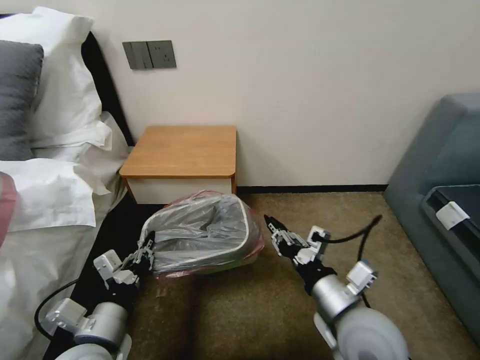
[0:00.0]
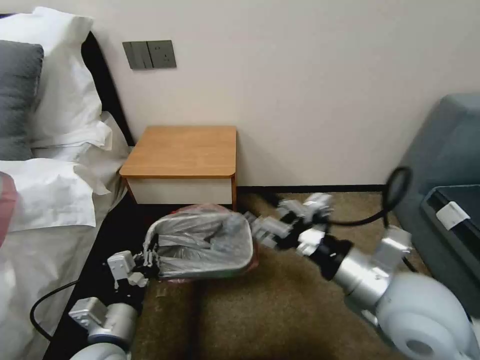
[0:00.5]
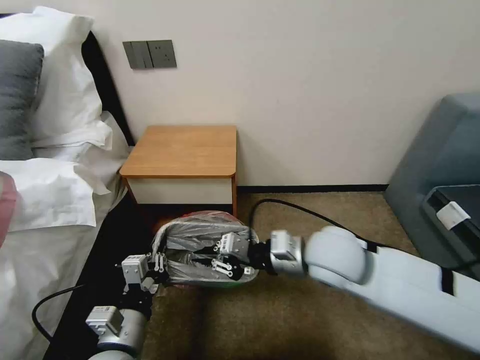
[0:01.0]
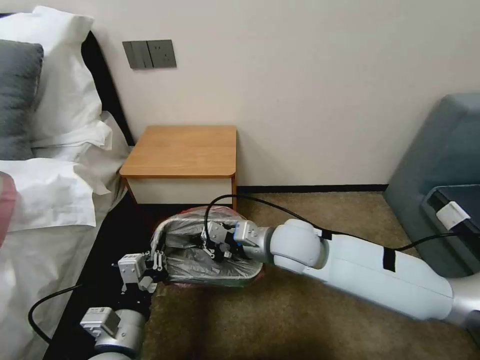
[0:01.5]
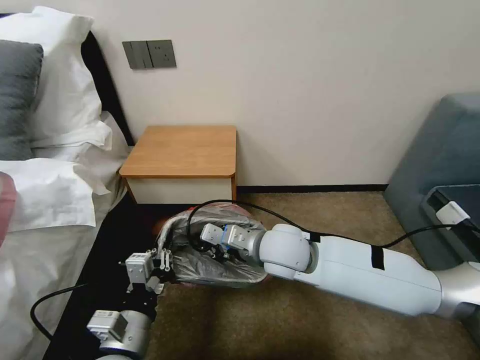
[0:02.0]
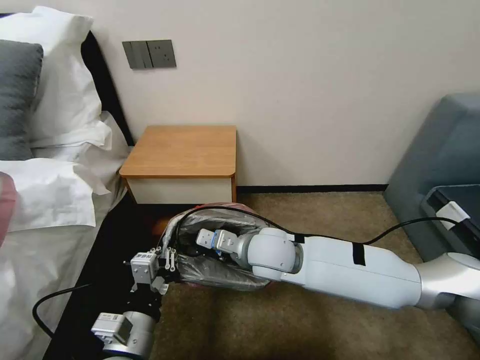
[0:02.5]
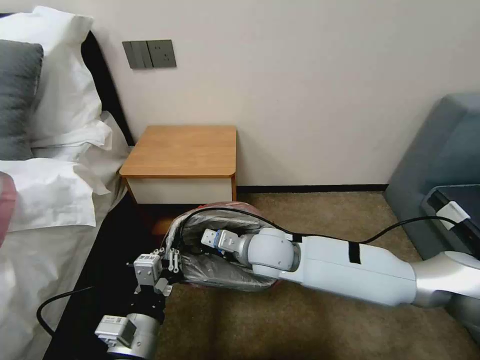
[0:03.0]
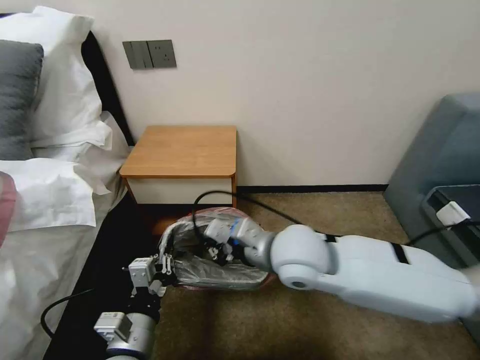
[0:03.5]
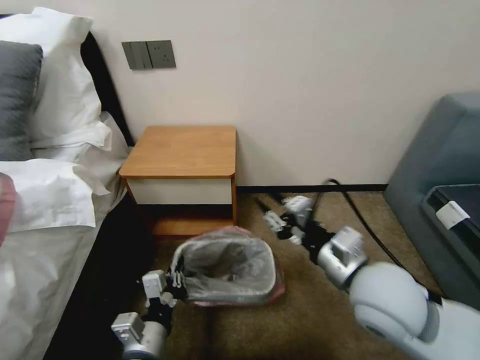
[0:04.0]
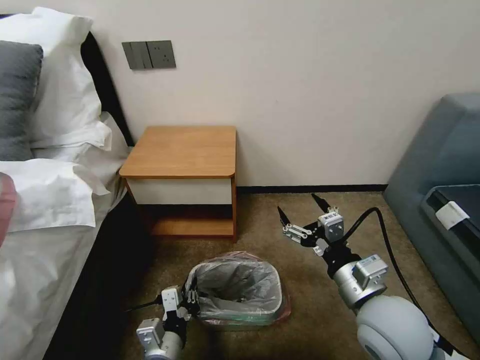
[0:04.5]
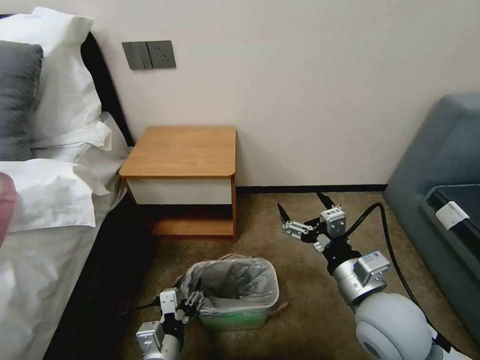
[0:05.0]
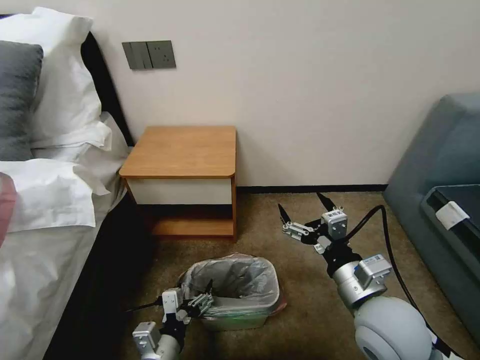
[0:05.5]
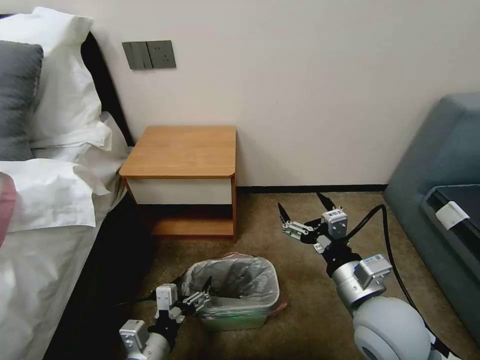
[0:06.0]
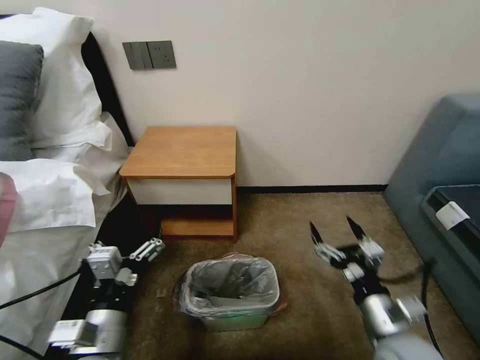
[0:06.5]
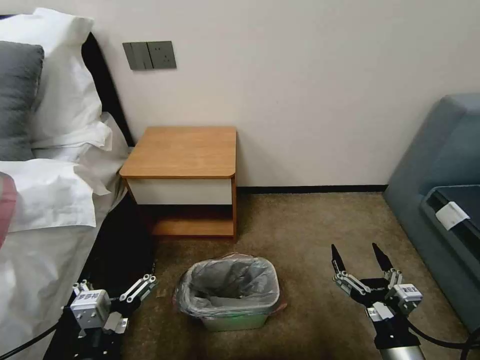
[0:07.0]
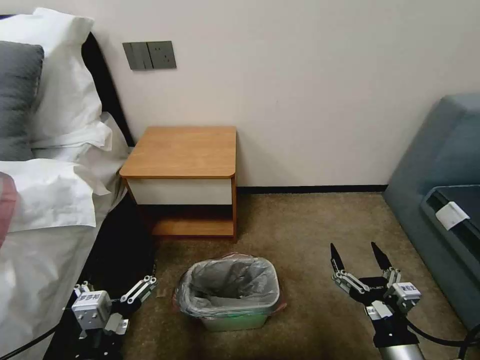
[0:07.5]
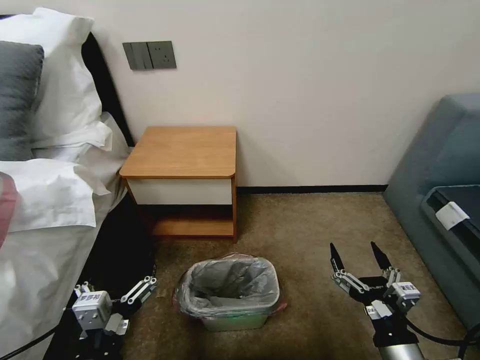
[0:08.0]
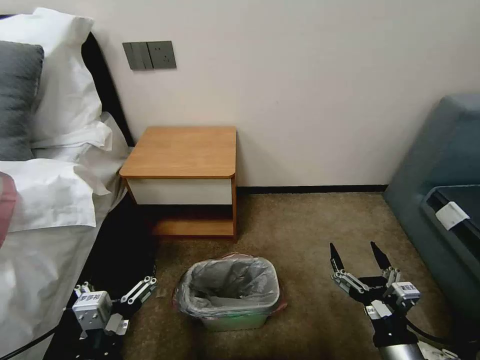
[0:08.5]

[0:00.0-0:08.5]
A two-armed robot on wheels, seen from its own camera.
Task of the whole recording: Pick up the garbage bag from the table and place it over the trash can.
0:00.0 to 0:02.0: The left gripper ends up some 5 cm from where it was. The right gripper goes roughly 20 cm forward and to the left, and opens and closes again.
0:02.0 to 0:04.0: The left gripper heads downward, covering about 5 cm, while the right gripper moves to the right and backward, about 15 cm, and opens.
0:04.0 to 0:06.5: The right gripper shifts roughly 15 cm downward, to the right and backward, and opens. The left gripper moves upward, some 5 cm, and opens up.
0:06.5 to 0:08.5: The two grippers go approximately 5 cm backward.

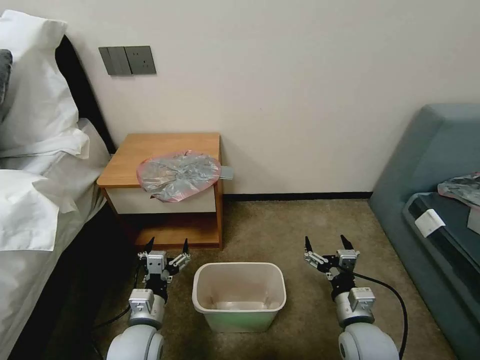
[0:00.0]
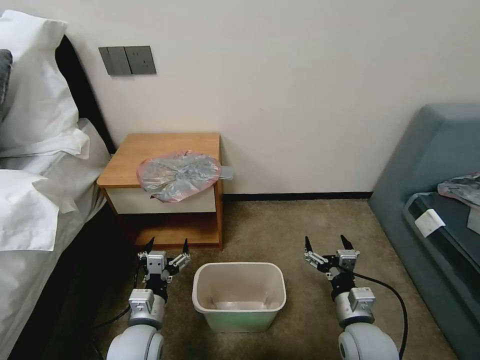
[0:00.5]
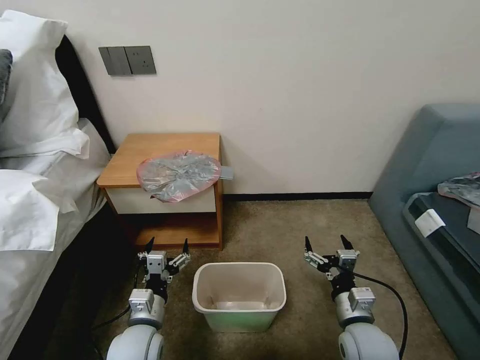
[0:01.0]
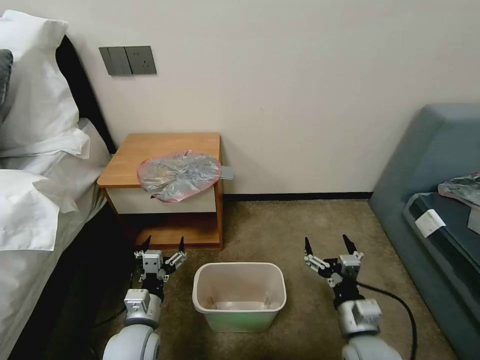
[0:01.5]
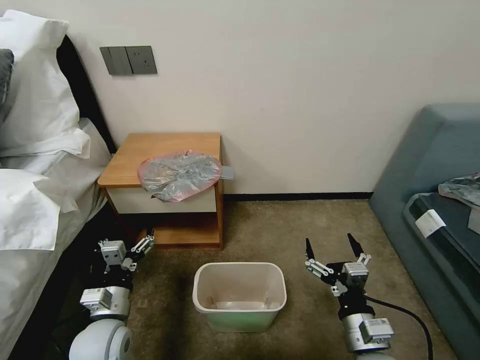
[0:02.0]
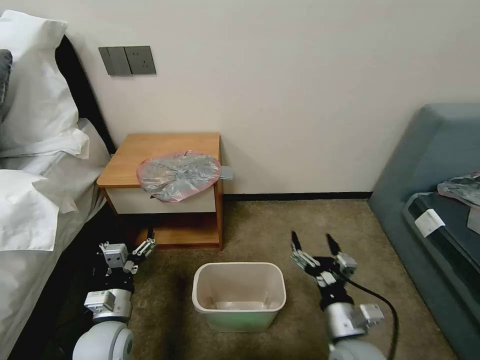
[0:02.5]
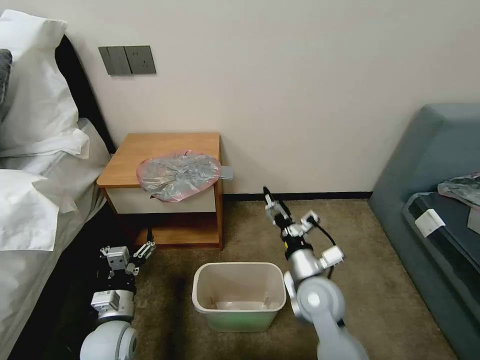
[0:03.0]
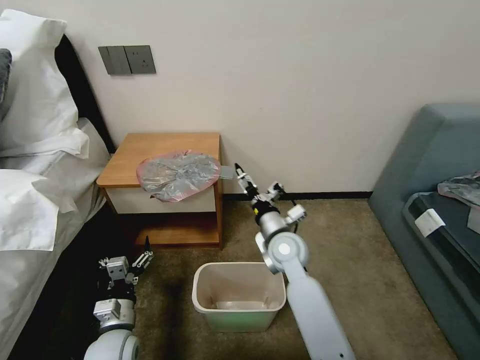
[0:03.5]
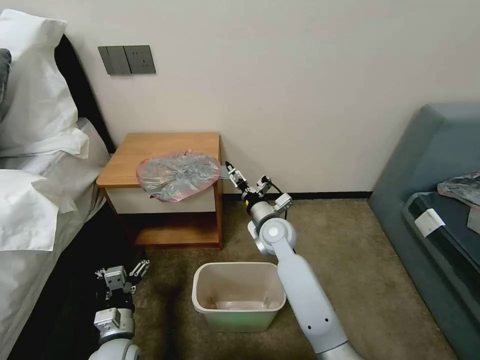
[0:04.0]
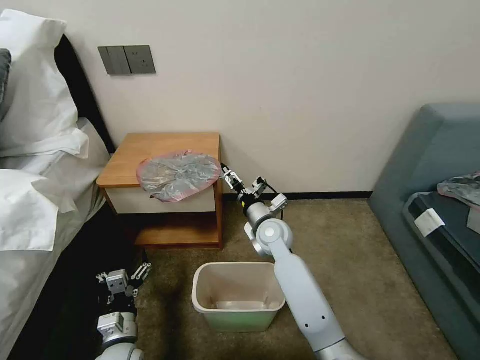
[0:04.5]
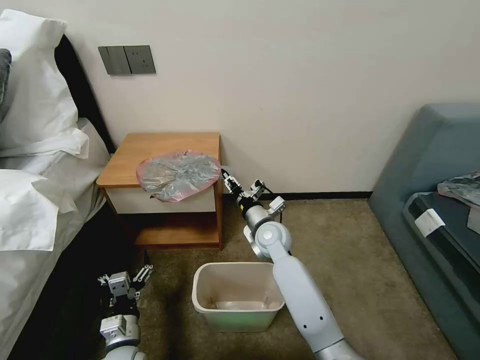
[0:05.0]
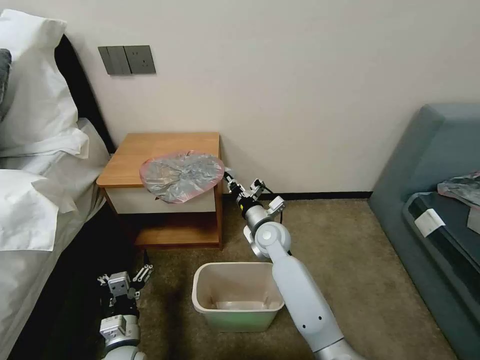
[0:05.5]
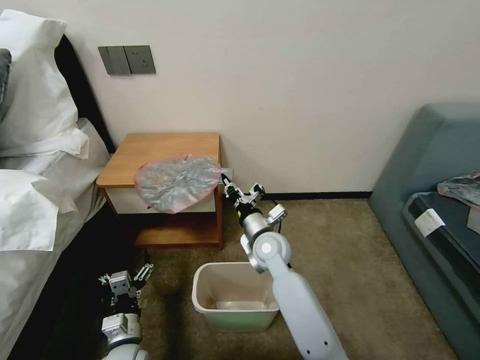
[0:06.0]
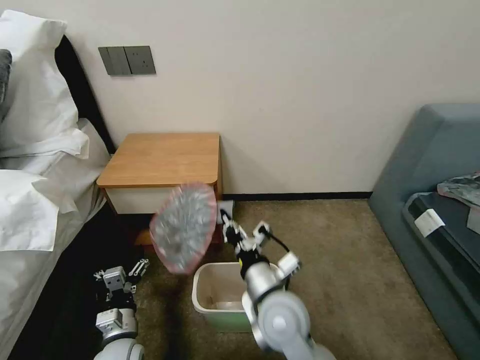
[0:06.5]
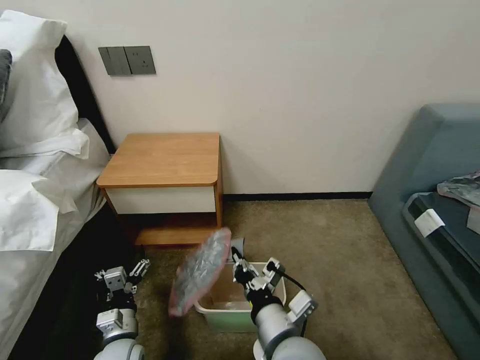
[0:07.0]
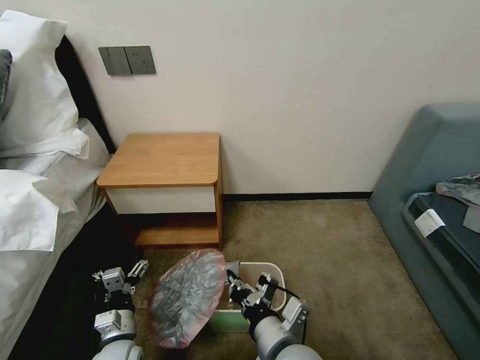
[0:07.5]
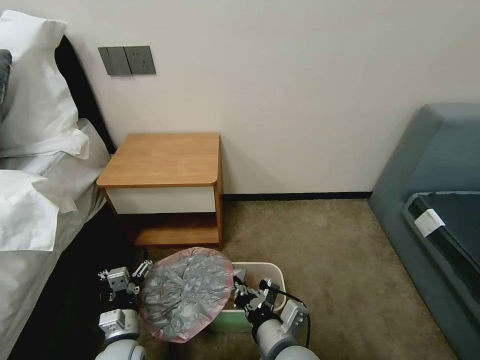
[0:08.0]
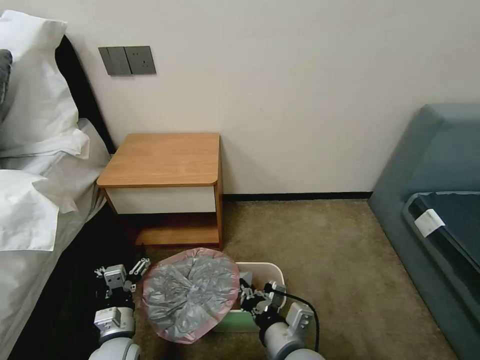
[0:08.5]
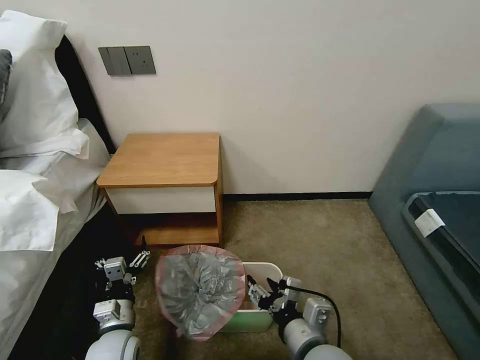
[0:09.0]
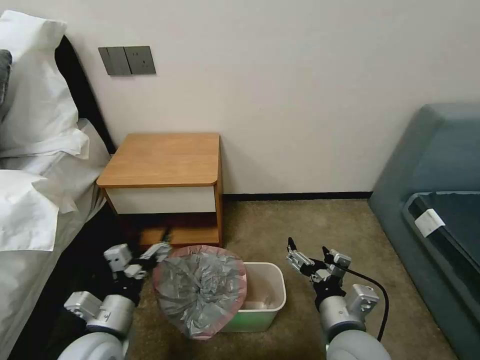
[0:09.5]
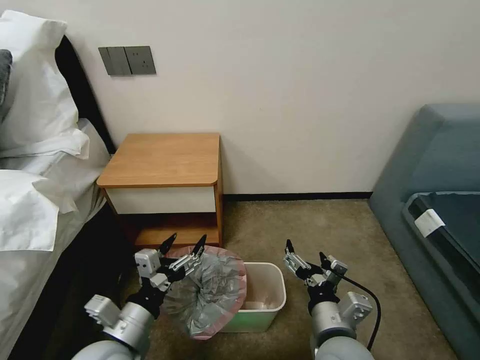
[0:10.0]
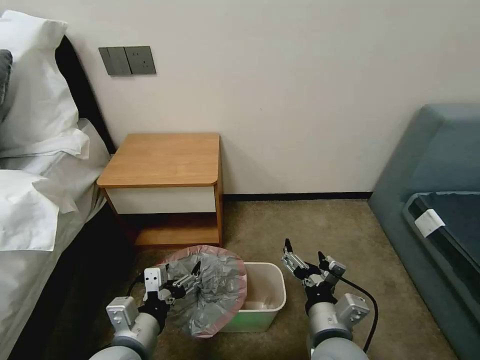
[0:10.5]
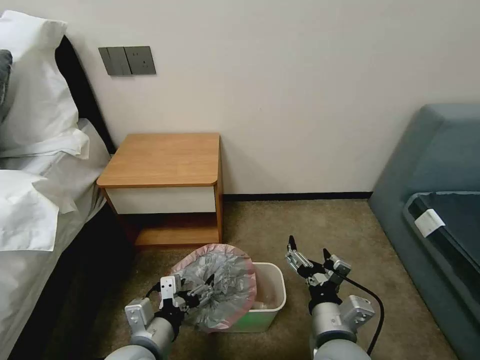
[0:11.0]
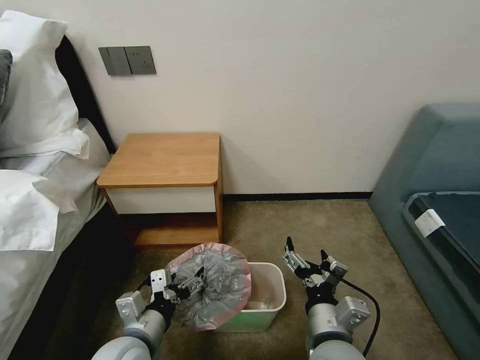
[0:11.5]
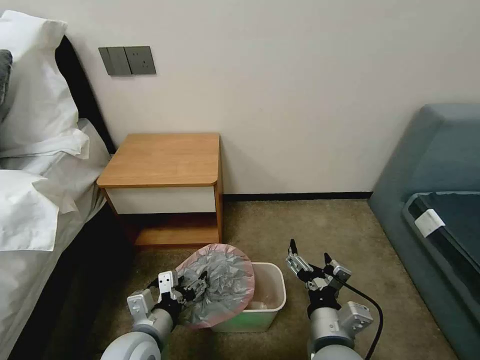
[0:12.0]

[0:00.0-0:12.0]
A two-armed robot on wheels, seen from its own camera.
Task of the whole recording: Pick up the garbage bag from the table and place it over the trash can.
0:02.0 to 0:04.0: The right gripper heads forward and to the left, covering some 30 cm. Meanwhile the left gripper moves downward, approximately 10 cm.
0:04.0 to 0:06.0: The right gripper closes its fingers.
0:06.0 to 0:08.0: The right gripper travels backward by approximately 25 cm.
0:08.0 to 0:10.0: The left gripper travels upward by about 15 cm, while the right gripper shifts some 10 cm to the right, and opens.
0:10.0 to 0:12.0: The left gripper moves roughly 5 cm.

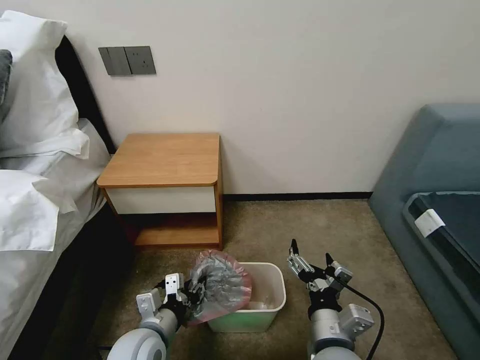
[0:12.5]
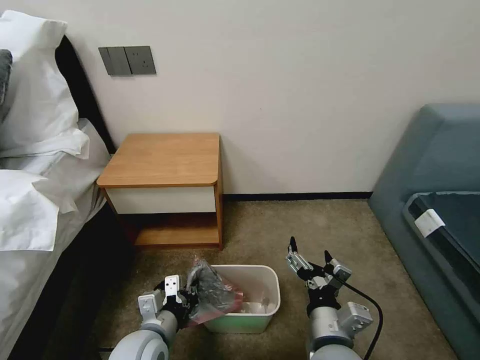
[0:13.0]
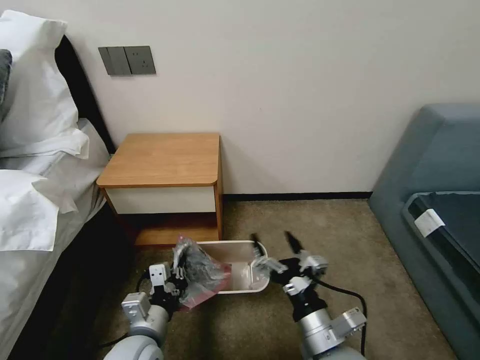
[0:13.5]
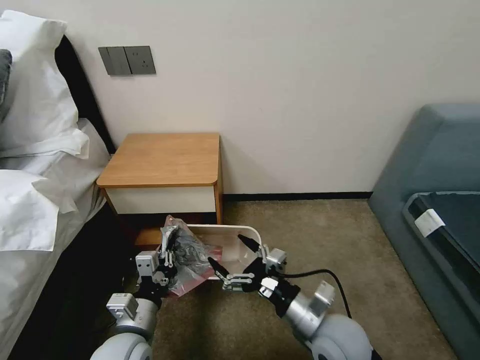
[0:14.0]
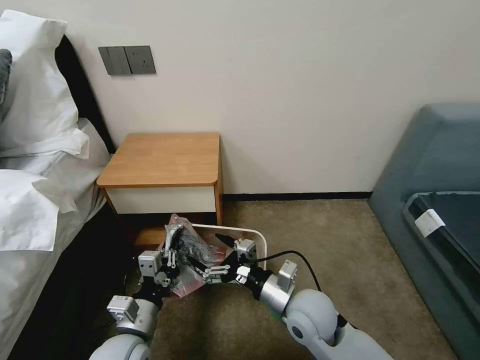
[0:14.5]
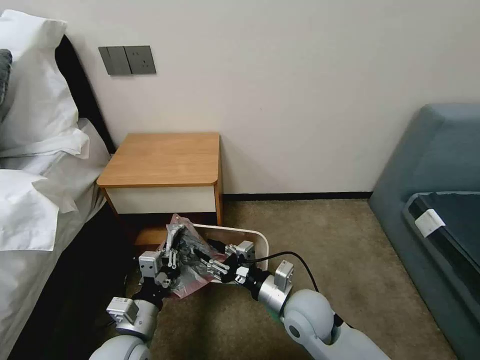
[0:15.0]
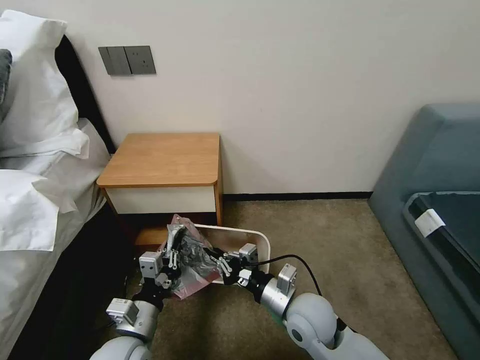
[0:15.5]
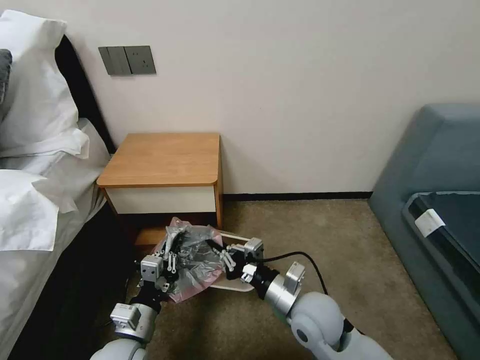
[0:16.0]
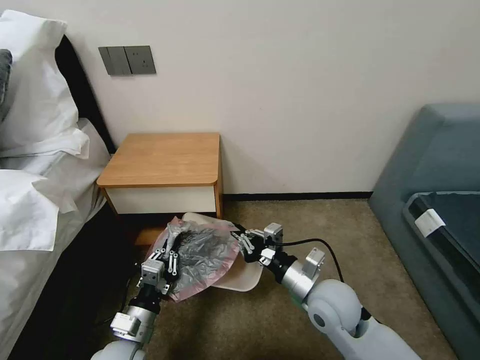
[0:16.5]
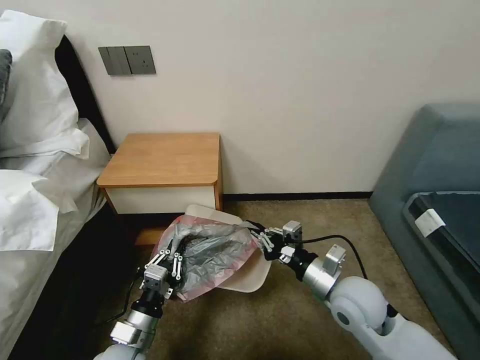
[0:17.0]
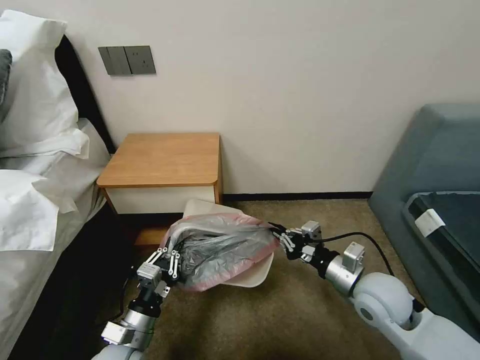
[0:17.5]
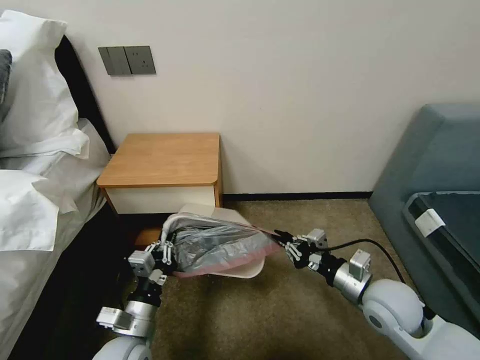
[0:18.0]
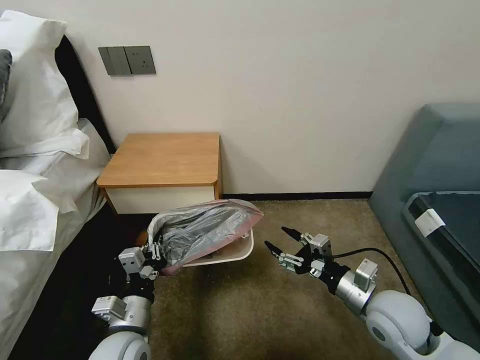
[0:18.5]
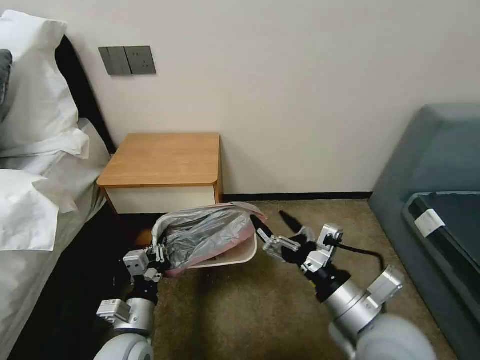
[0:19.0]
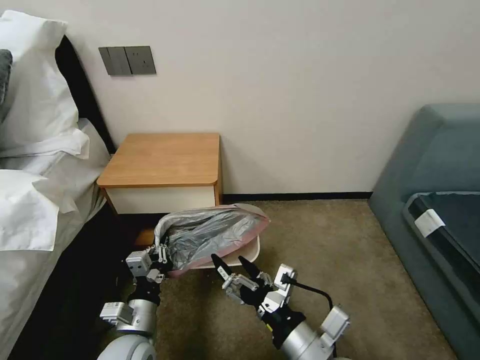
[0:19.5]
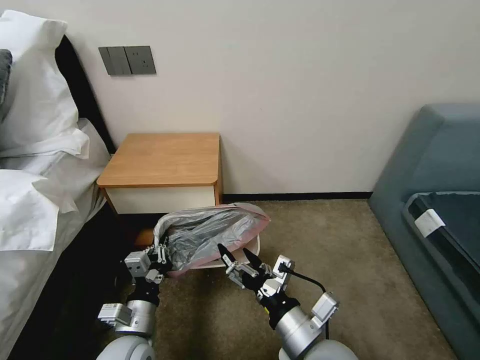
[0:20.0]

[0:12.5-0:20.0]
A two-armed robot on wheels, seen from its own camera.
Task of the whole recording: Pick up the garbage bag from the table and place it over the trash can.
0:12.5 to 0:14.5: The right gripper goes approximately 10 cm forward.
0:14.5 to 0:16.5: The right gripper closes up.
0:16.5 to 0:18.0: The right gripper heads to the right, covering approximately 10 cm.
0:18.0 to 0:20.0: The right gripper heads to the left and backward, covering roughly 20 cm, and opens.
